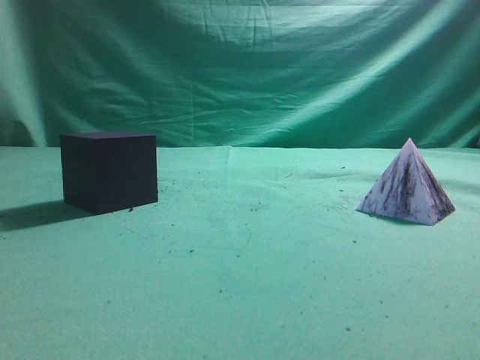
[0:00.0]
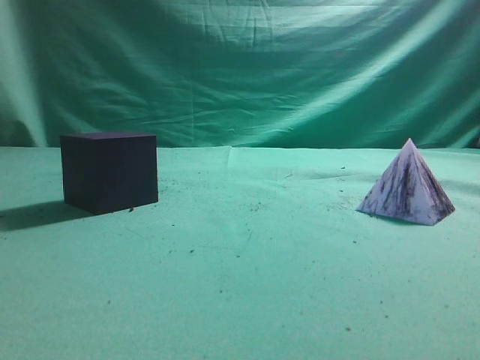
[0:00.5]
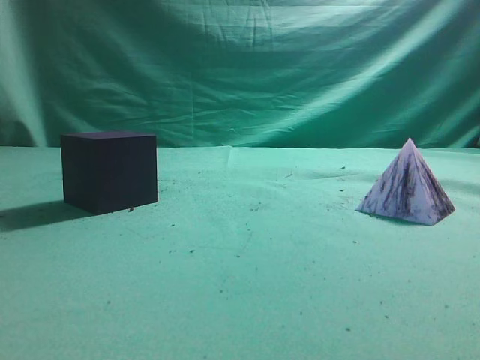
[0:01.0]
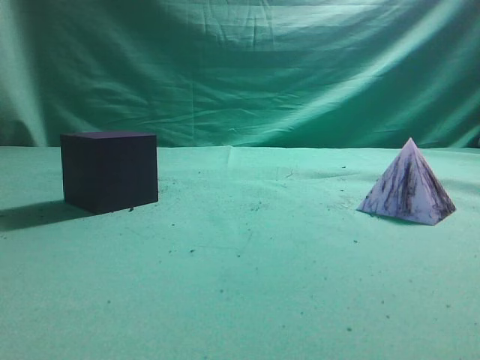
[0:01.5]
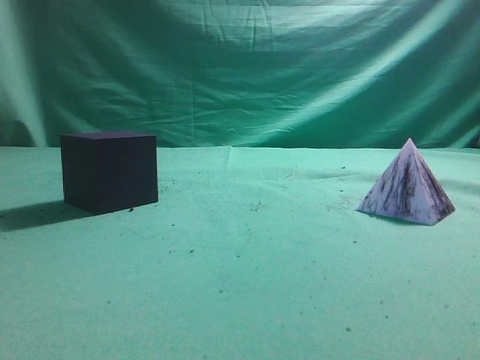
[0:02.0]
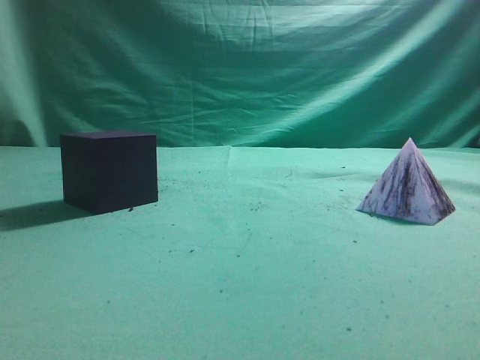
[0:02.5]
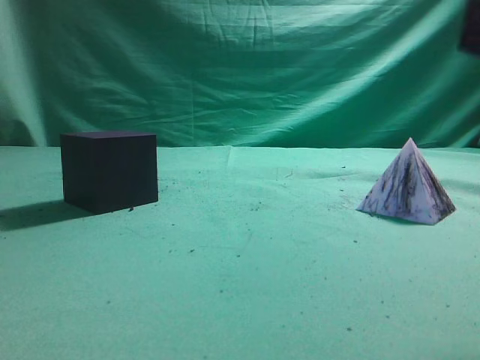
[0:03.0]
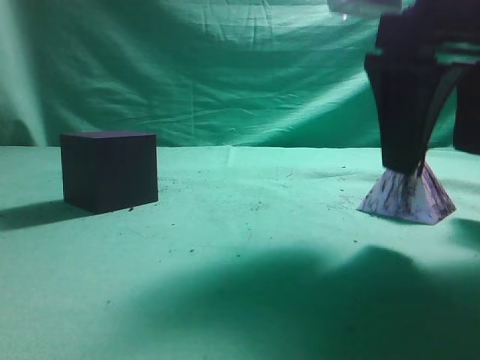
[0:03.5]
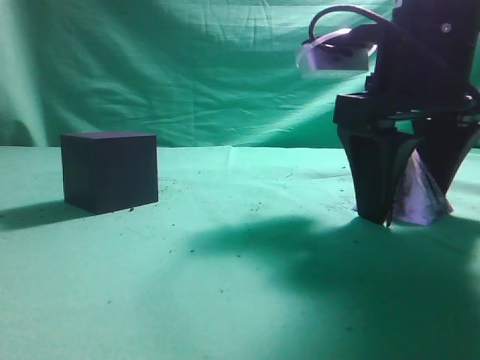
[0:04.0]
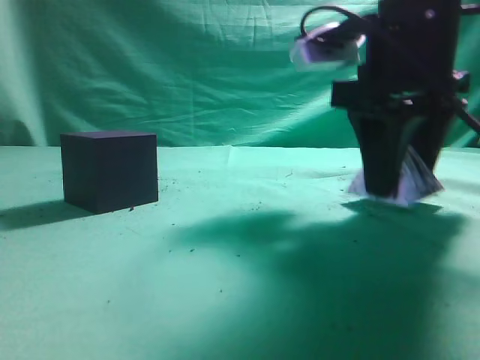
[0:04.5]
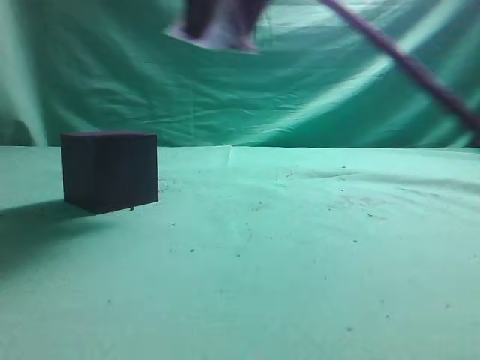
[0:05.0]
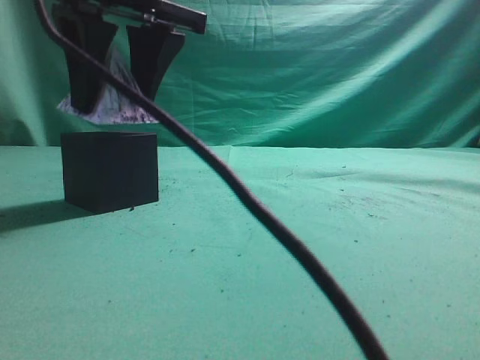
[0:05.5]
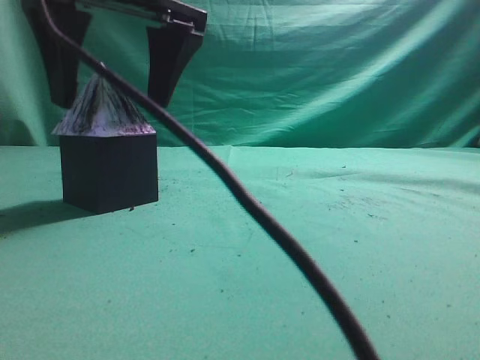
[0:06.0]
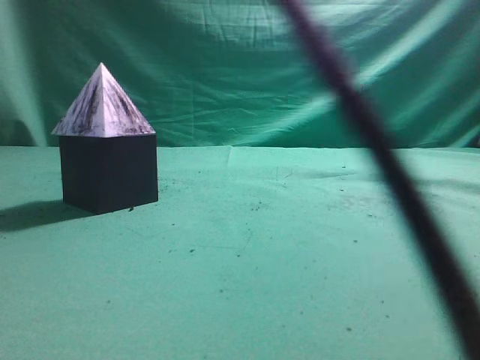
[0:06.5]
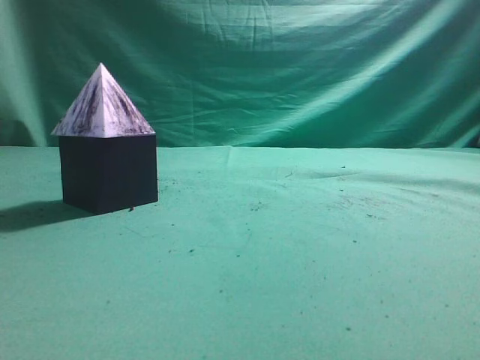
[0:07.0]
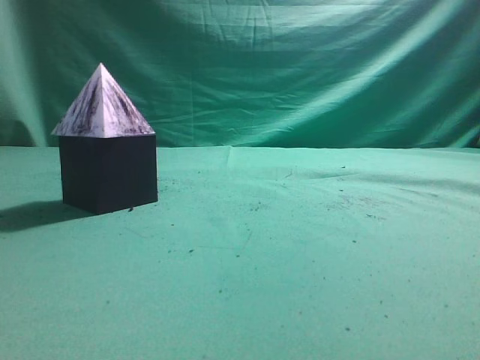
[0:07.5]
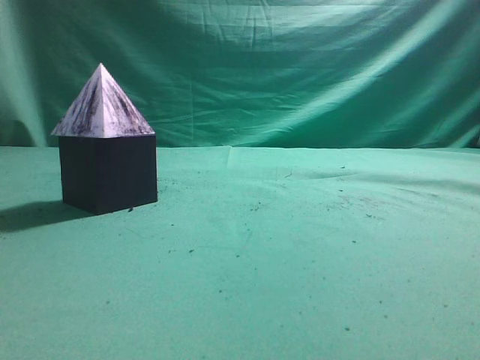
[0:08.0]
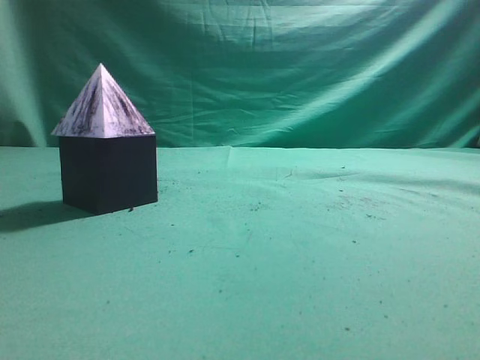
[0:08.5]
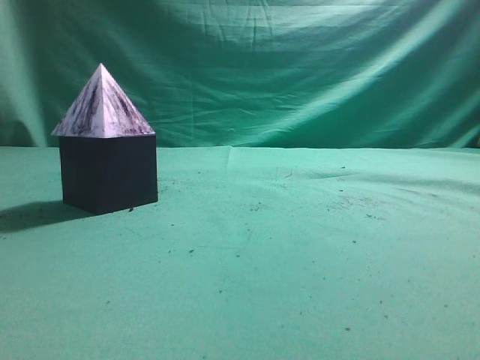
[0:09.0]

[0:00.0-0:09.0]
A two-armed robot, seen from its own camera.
Task of the whole recording: pick up the square pyramid from the table and place it on the cube block.
Step, 0:00.0 to 0:04.5: Grasp the triangular block.
Step, 0:05.0 to 0:06.0: Place the block onto the cube-shaped block.
0:02.0 to 0:04.5: The right gripper shifts about 30 cm forward and to the left, and opens.
0:04.5 to 0:07.0: The right gripper swings up and down, about 25 cm each way, with 2 reversals, and closes up.
